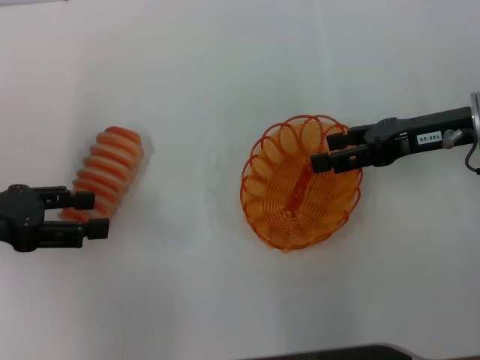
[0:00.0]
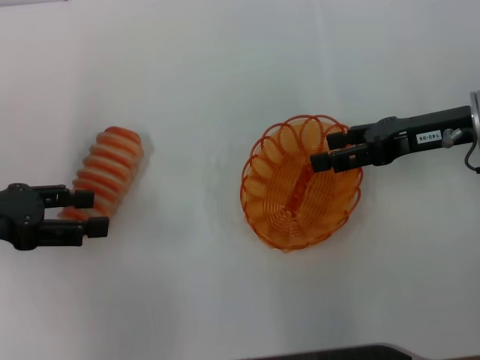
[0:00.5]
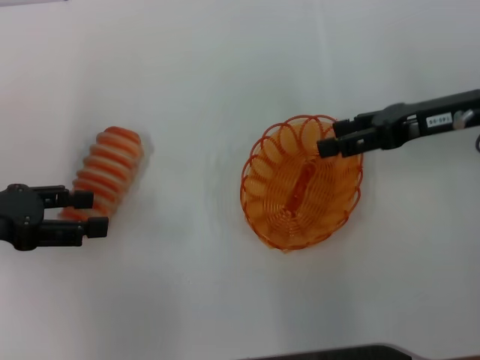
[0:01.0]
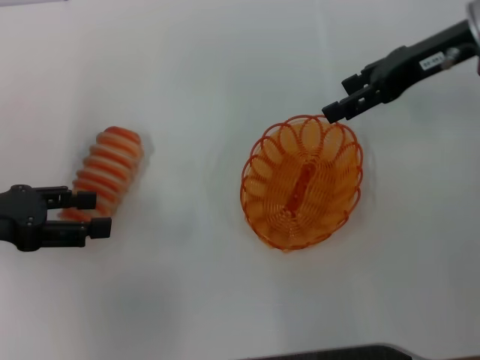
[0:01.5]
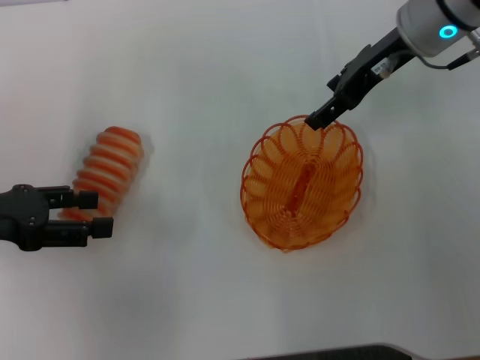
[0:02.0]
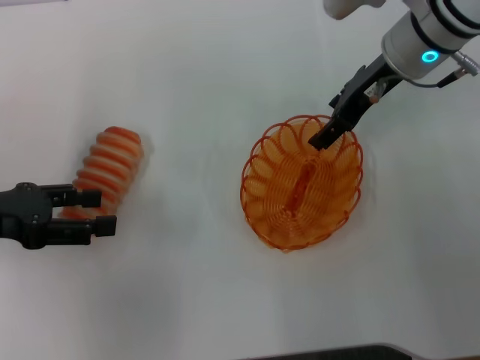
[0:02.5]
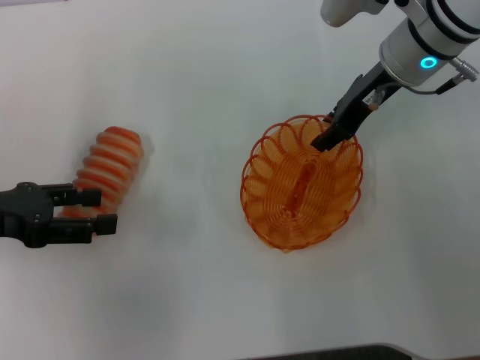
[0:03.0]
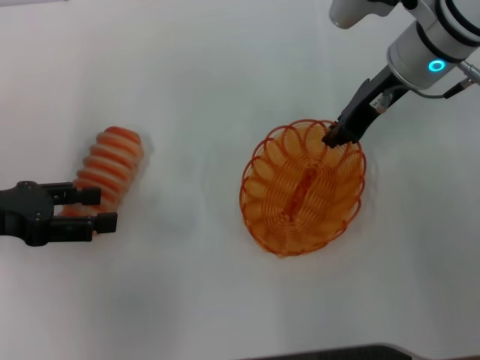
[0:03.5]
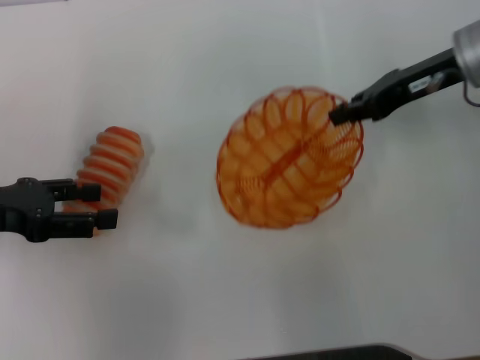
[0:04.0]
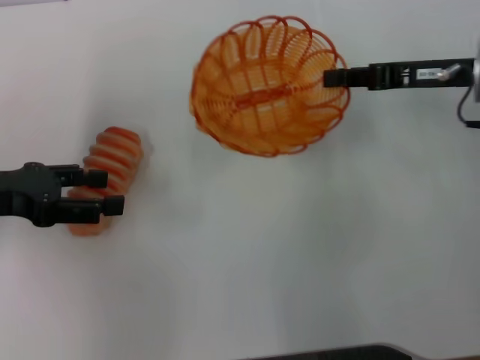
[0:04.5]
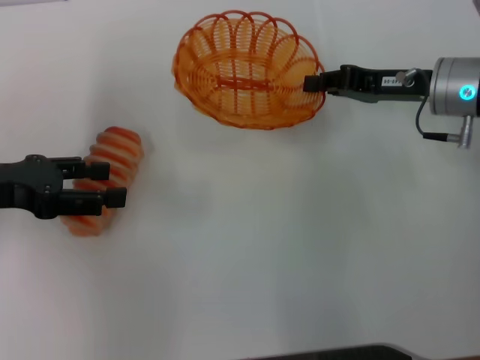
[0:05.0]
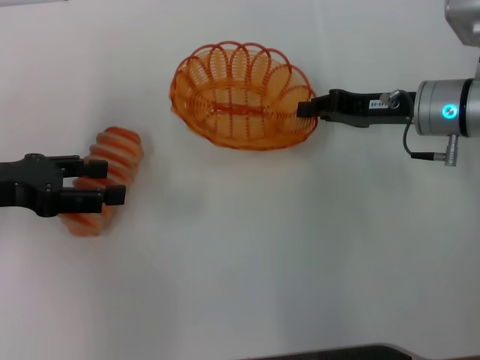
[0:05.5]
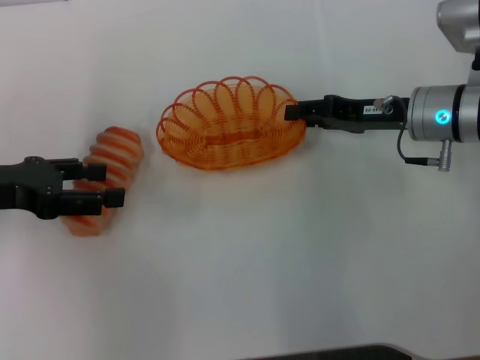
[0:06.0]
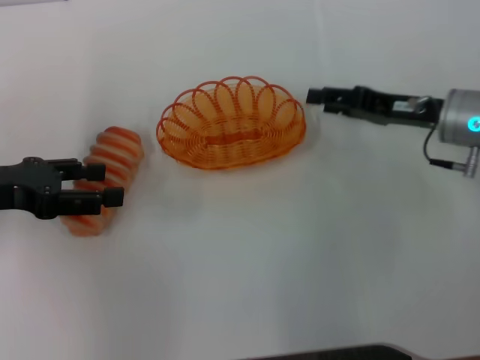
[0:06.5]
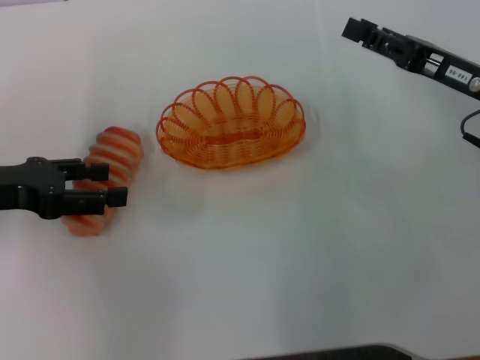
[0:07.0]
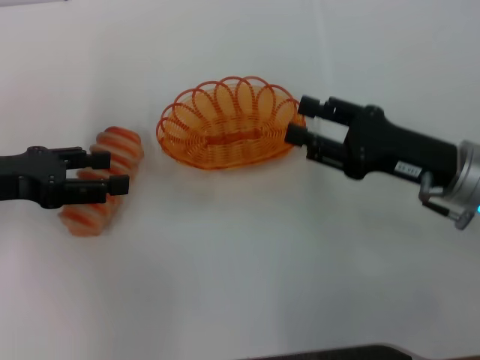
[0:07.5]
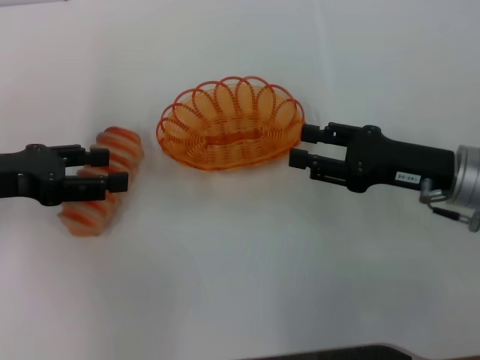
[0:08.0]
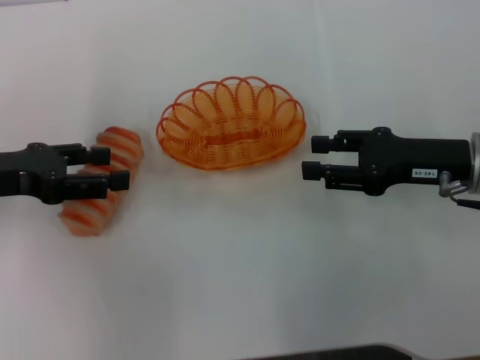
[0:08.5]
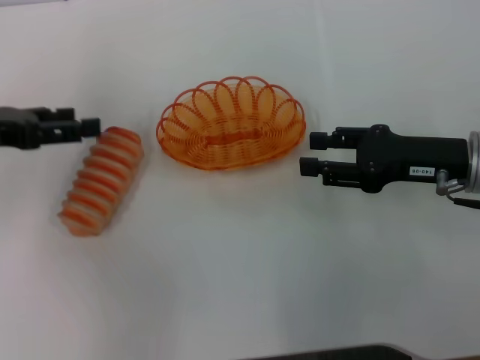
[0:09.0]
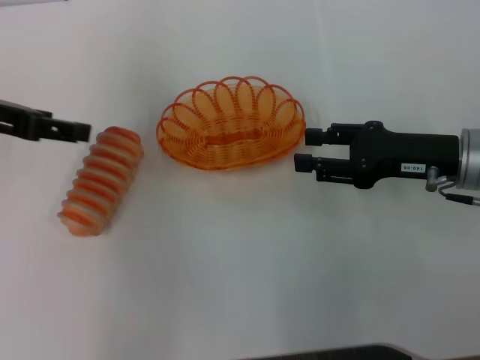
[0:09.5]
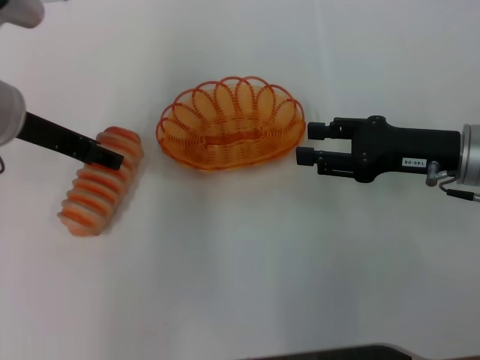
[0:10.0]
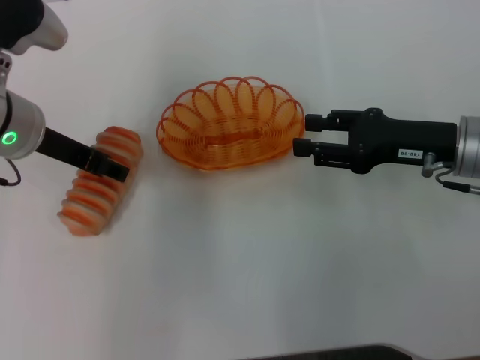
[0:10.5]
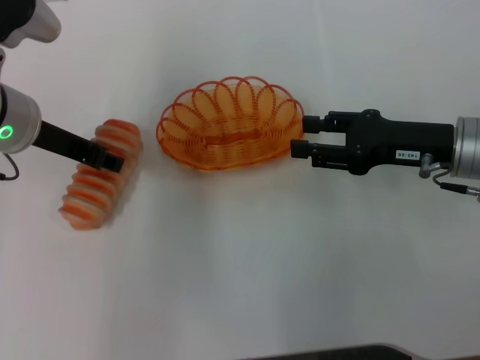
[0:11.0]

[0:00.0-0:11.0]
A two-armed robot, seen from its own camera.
Step, 0:00.0 to 0:03.5: Pick up the basket with the right gripper.
Step, 0:04.0 to 0:06.5: Place the basket in the center of view with the right gripper.
0:00.0 to 0:02.0: The right gripper shifts approximately 15 cm forward, to the left and upward.
0:02.0 to 0:03.5: The right gripper closes its fingers.
0:03.5 to 0:05.5: The right gripper heads downward and to the right, covering about 10 cm.
0:05.5 to 0:07.5: The right gripper moves backward, about 10 cm, and opens its fingers.
0:07.5 to 0:09.0: The grippers stay close to where they were, moving slightly.
0:09.0 to 0:11.0: The left gripper heads to the right, covering approximately 10 cm, and closes its fingers.

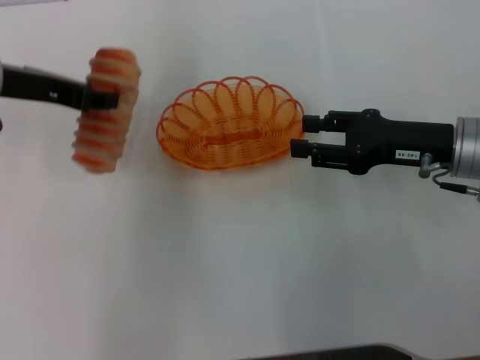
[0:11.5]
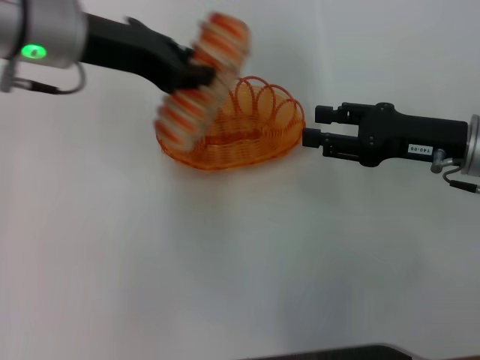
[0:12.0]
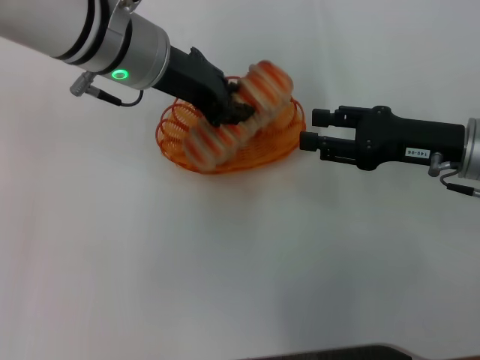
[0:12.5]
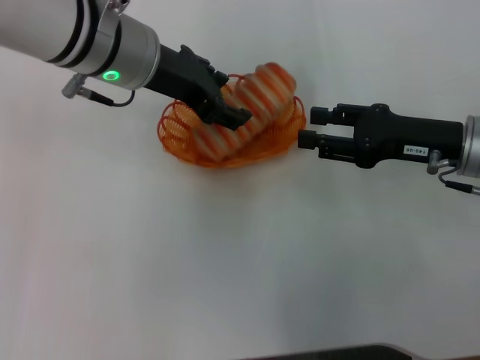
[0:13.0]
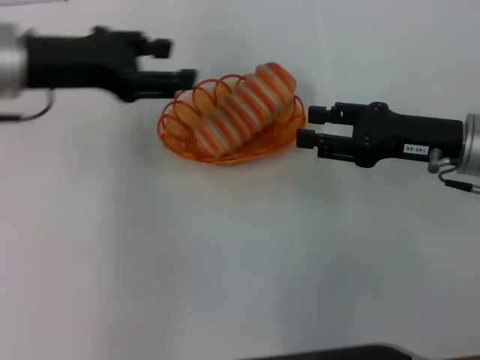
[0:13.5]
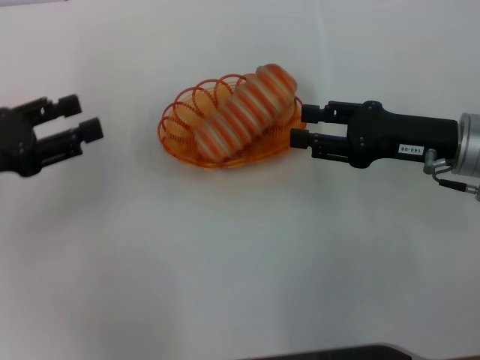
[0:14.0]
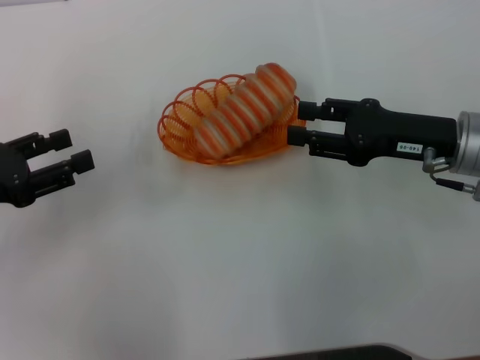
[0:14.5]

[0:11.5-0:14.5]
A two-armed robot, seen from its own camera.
Step, 0:11.5 to 0:13.0: Place the long bread into the basket with the left gripper.
0:11.5 to 0:13.0: The left gripper is displaced to the right by about 10 cm.
0:13.0 to 0:14.5: The left gripper goes some 25 cm to the left and backward.
